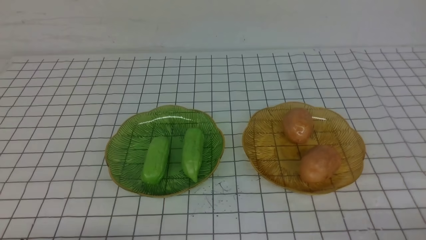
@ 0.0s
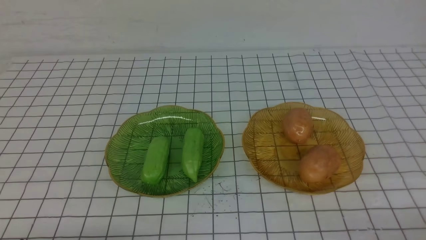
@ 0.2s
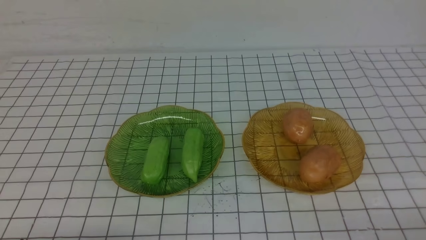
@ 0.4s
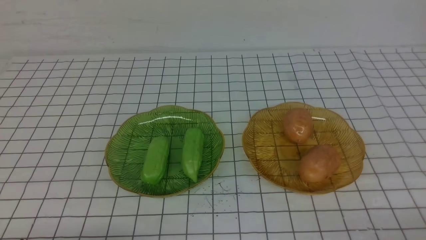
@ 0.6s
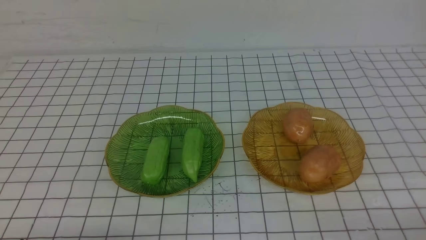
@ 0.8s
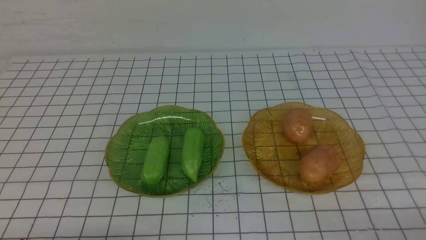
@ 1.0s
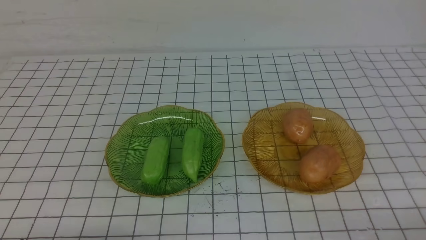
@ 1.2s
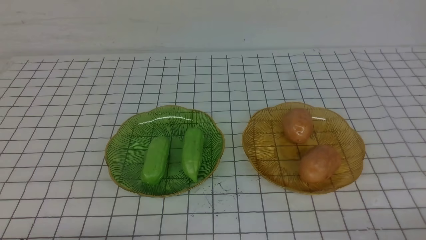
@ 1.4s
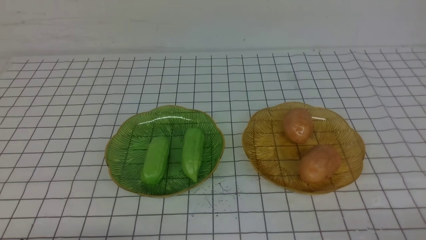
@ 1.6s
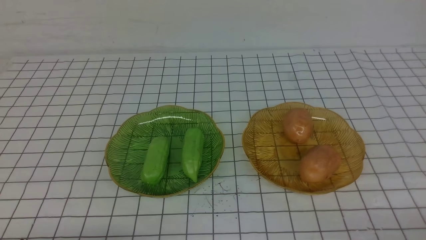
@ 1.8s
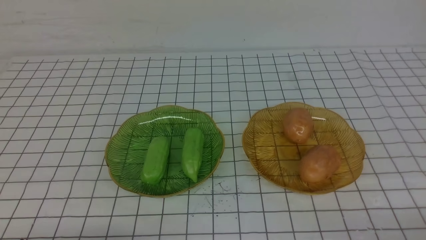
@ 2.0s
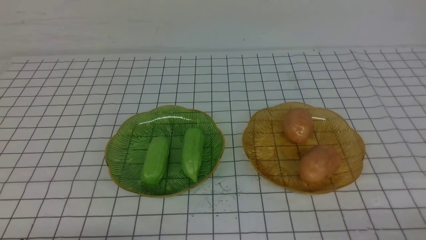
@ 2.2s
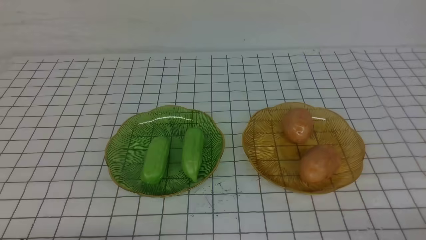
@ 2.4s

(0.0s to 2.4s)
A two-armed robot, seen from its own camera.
1.2s - 2.4s: Both grippers stay put.
